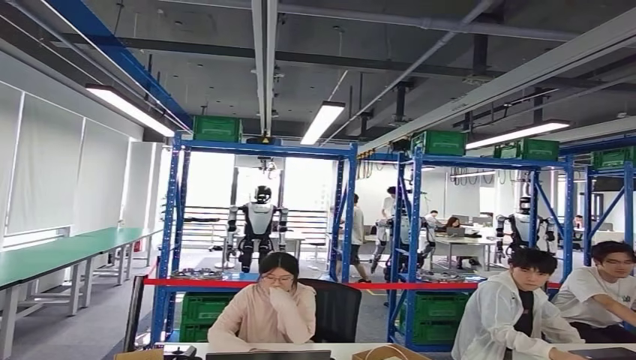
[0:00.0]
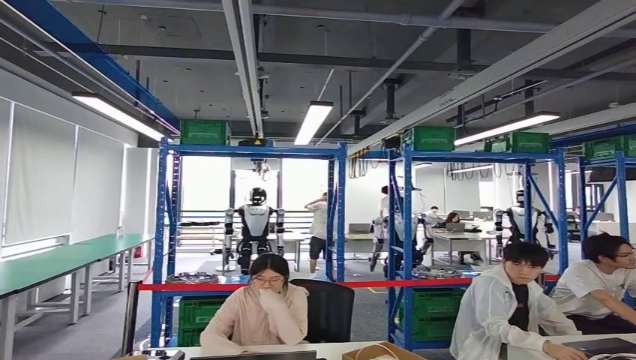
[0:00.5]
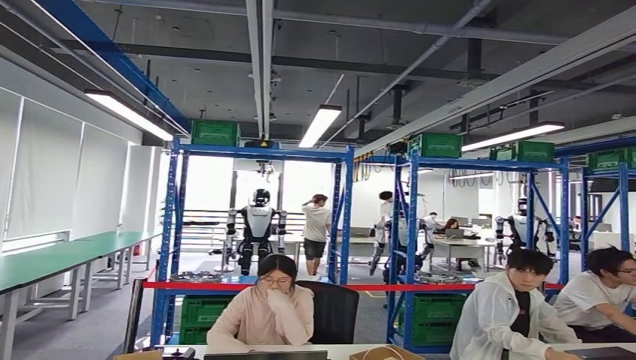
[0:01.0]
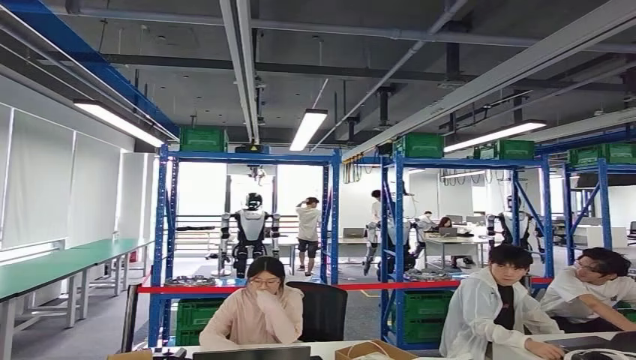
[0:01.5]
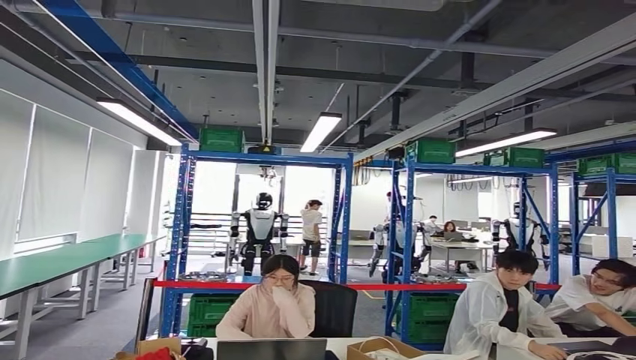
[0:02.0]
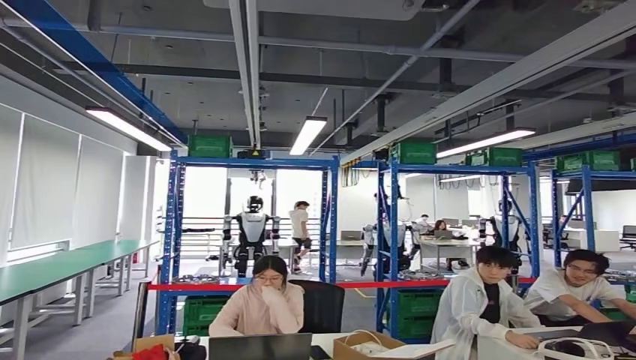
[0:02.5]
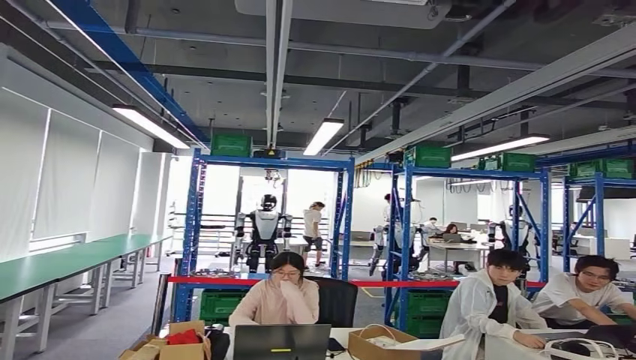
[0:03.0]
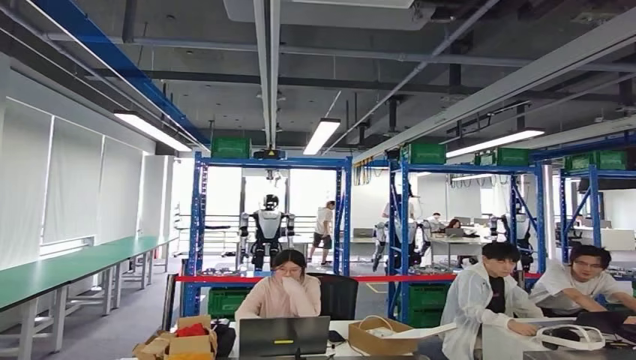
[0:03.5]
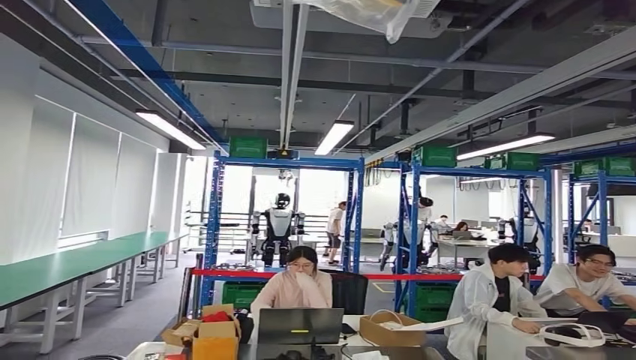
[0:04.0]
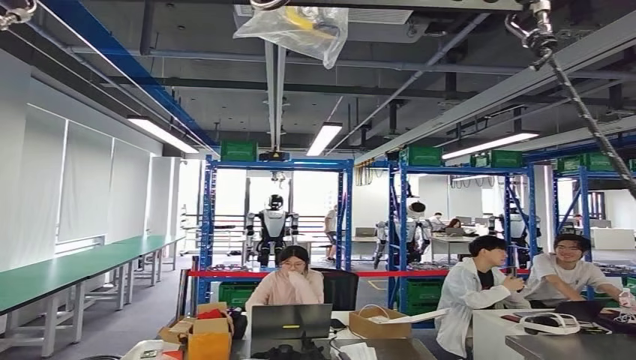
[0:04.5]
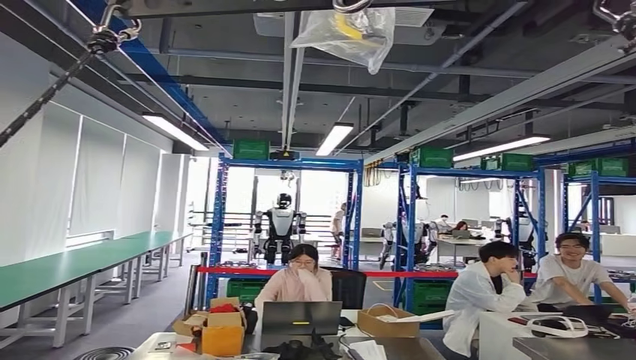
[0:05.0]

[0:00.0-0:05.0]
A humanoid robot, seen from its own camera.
Step, 0:00.5 to 0:05.0: Return to the initial position at the workbench.
